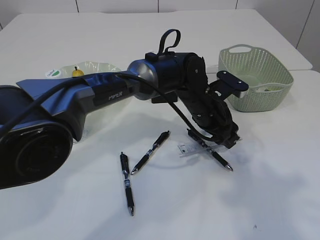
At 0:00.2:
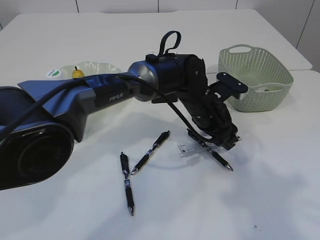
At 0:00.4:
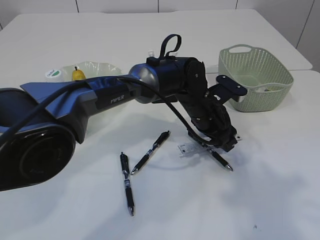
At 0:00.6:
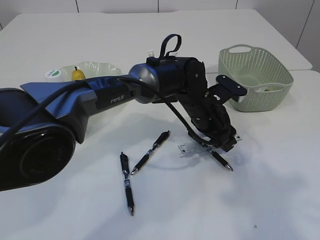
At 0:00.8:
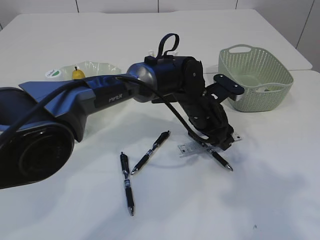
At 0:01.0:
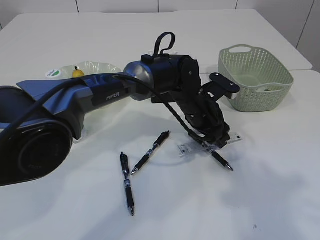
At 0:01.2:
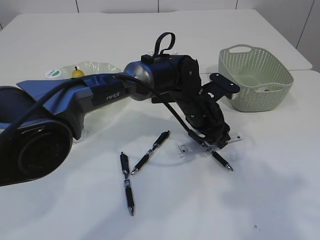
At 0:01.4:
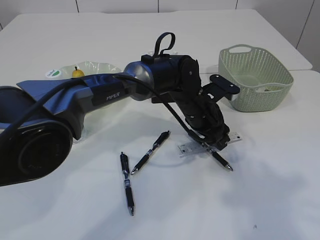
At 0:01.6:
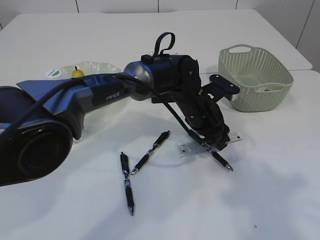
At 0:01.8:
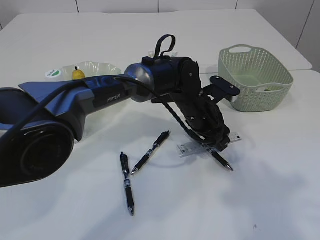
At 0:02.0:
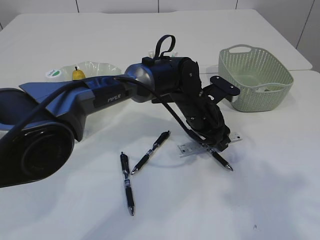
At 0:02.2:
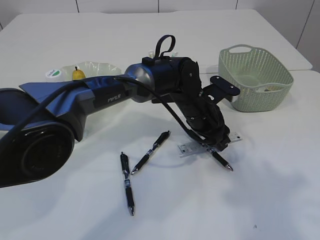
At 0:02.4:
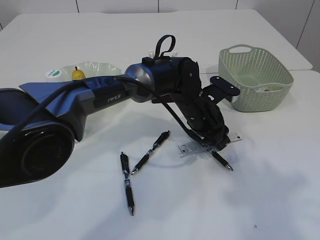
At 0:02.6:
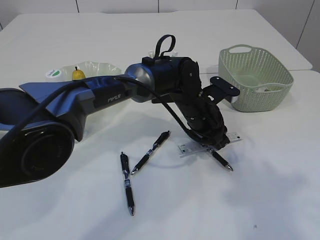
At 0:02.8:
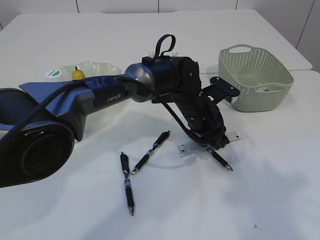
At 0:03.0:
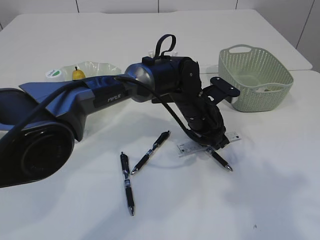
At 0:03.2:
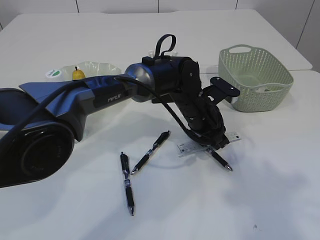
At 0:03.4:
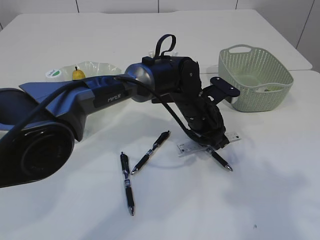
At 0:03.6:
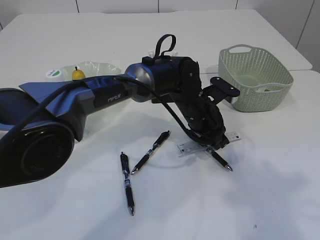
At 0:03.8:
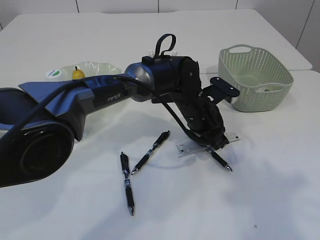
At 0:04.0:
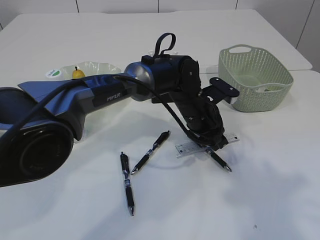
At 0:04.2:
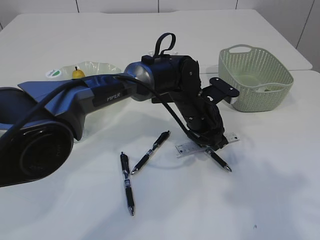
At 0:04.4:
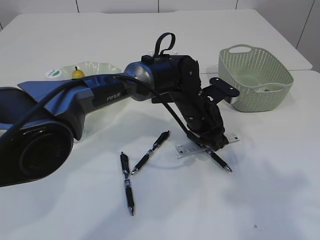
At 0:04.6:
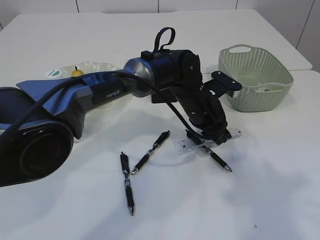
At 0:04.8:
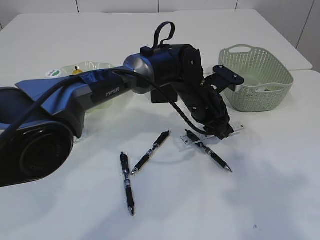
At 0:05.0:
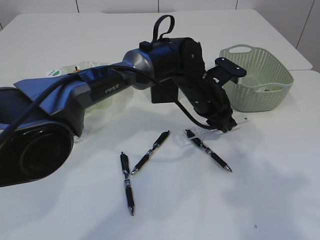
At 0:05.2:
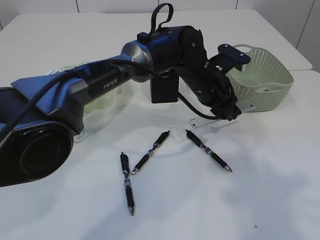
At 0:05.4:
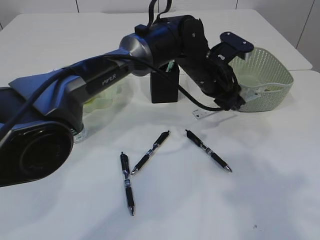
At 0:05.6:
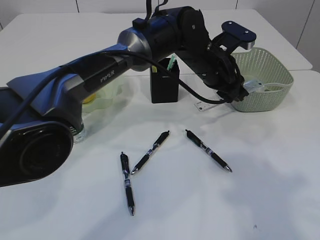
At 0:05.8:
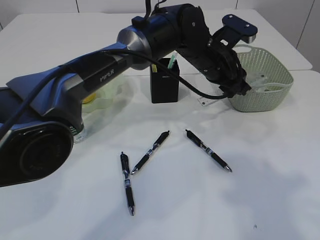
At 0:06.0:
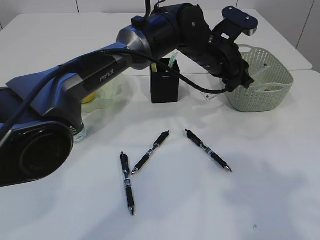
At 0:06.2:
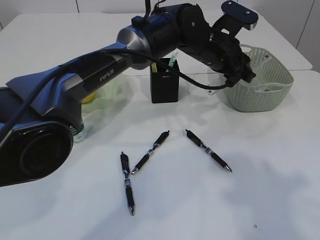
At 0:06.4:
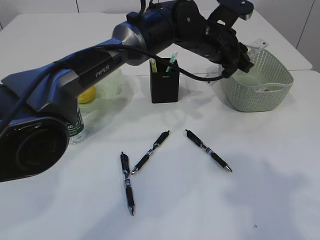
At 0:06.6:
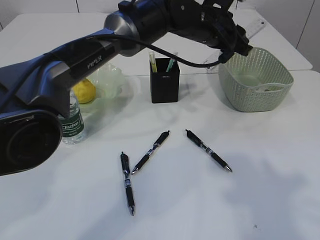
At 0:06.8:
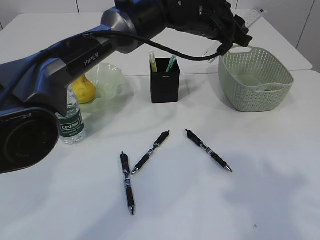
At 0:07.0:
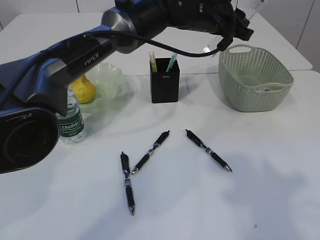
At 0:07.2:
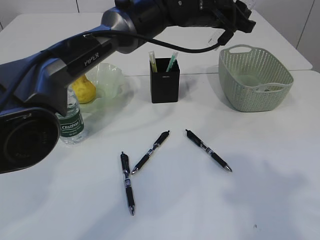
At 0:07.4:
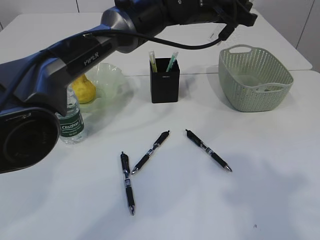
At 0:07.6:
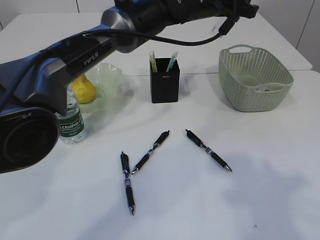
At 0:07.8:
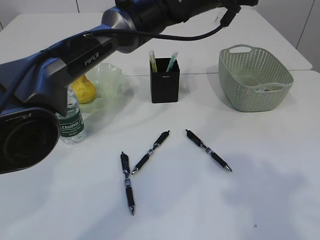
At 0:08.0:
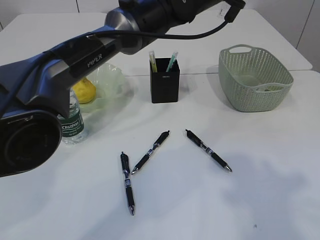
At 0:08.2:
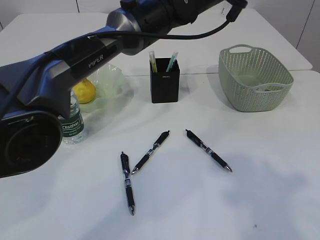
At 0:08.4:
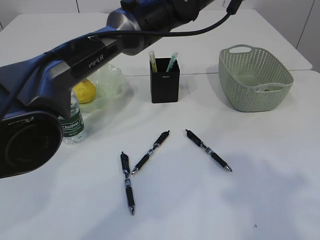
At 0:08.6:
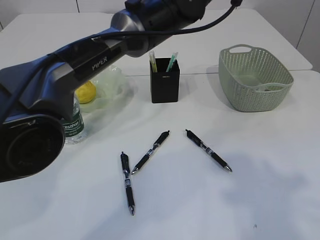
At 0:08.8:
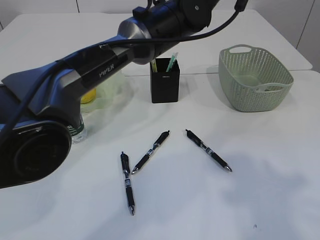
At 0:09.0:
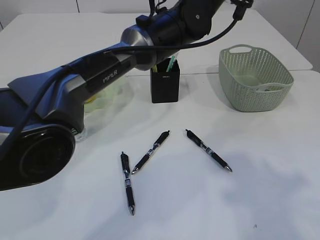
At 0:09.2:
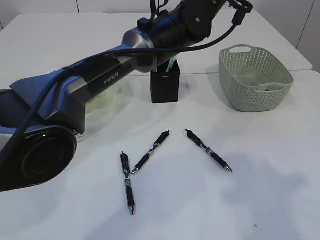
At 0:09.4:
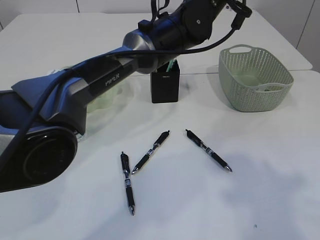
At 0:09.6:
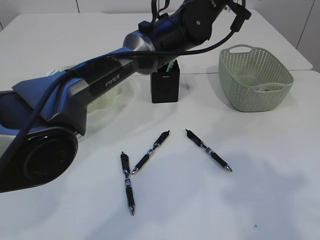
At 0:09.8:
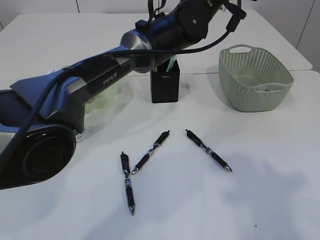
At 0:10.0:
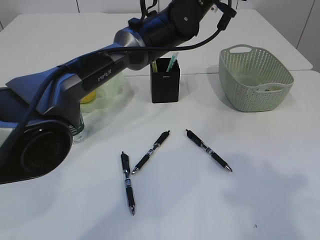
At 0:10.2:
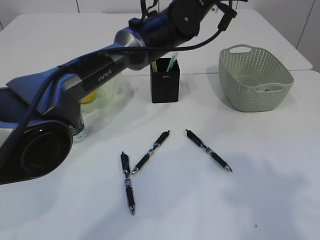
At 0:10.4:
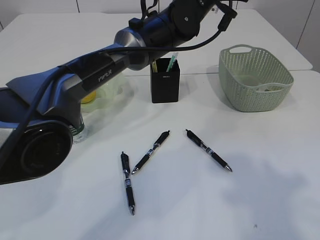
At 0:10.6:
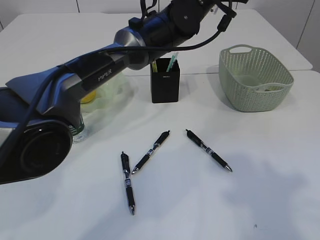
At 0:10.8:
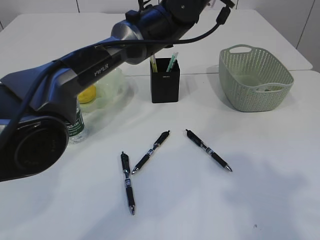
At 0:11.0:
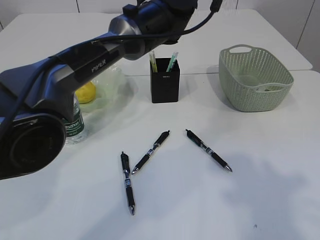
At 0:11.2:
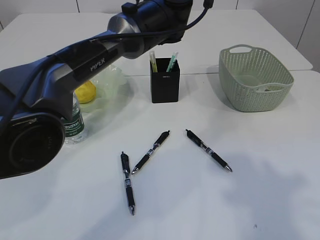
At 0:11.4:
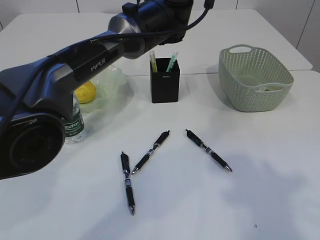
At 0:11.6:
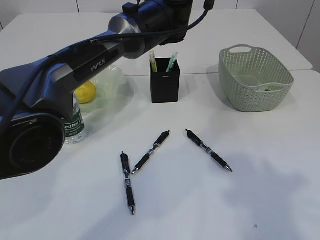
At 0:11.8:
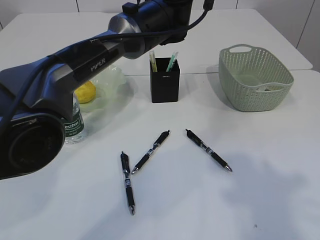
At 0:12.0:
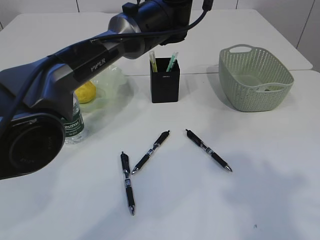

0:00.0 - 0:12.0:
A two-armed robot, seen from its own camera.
Step, 0:00.0 - 0:05.0: pick up the ruler.
0:00.0 - 0:01.6: The grippers make only small movements.
0:01.6 - 0:03.0: The left gripper closes its fingers.
0:03.0 - 0:04.4: Both grippers stay put.
0:04.4 - 0:06.0: The left gripper shifts approximately 10 cm upward.
0:06.0 - 0:07.6: The left gripper moves upward, some 10 cm.
0:09.0 - 0:10.4: The grippers make only small movements.

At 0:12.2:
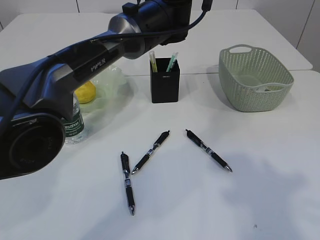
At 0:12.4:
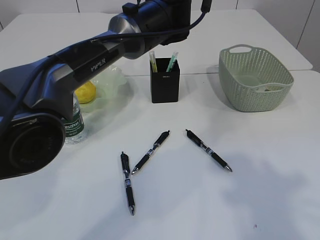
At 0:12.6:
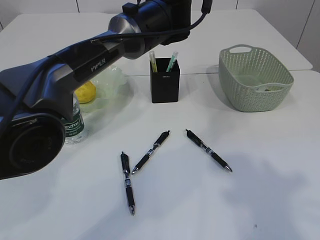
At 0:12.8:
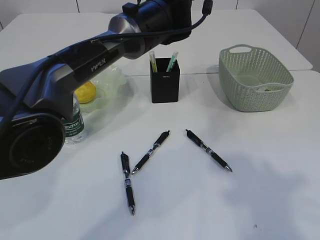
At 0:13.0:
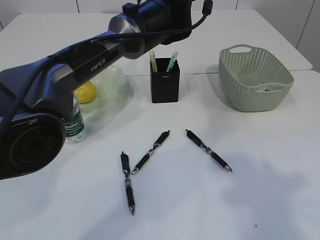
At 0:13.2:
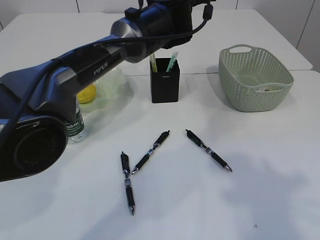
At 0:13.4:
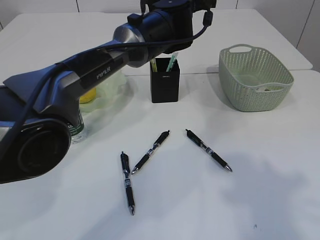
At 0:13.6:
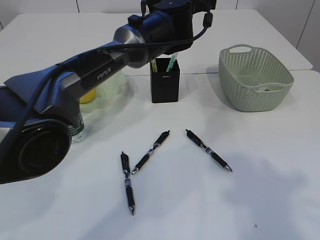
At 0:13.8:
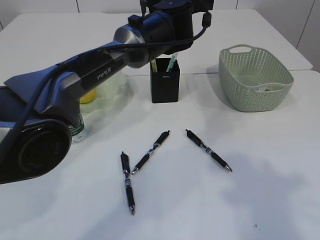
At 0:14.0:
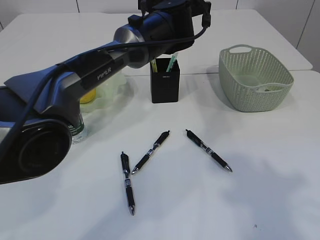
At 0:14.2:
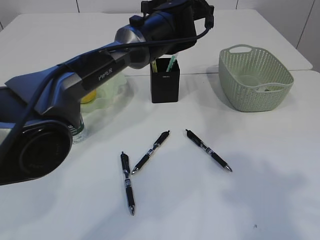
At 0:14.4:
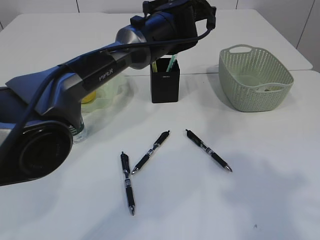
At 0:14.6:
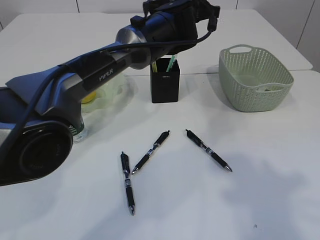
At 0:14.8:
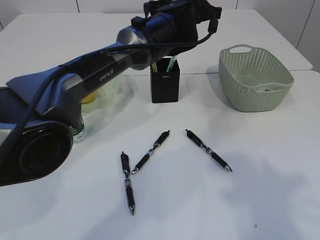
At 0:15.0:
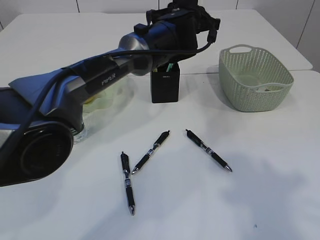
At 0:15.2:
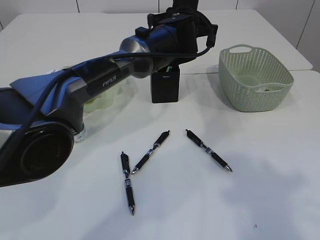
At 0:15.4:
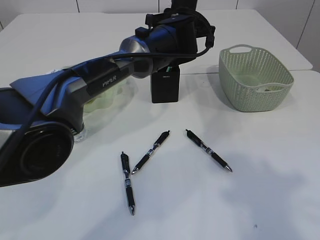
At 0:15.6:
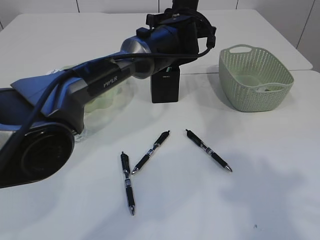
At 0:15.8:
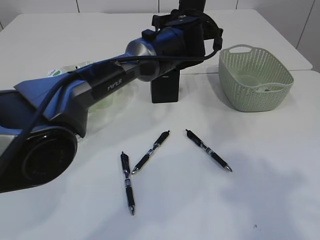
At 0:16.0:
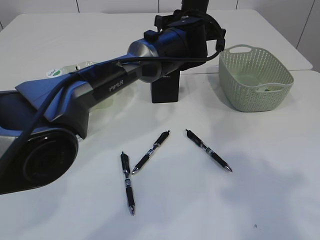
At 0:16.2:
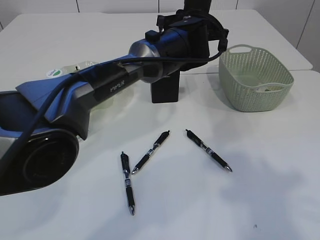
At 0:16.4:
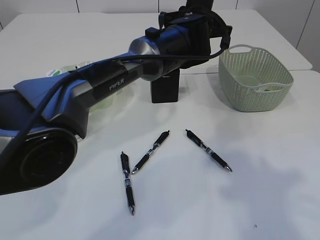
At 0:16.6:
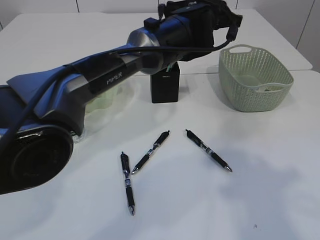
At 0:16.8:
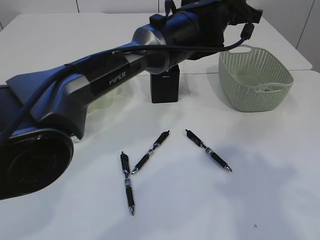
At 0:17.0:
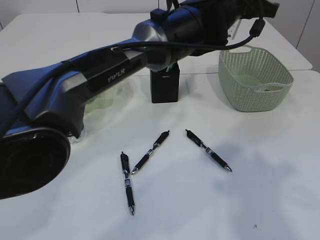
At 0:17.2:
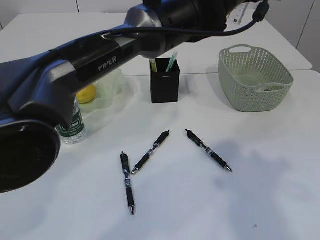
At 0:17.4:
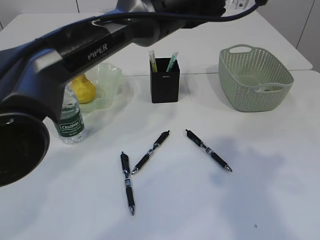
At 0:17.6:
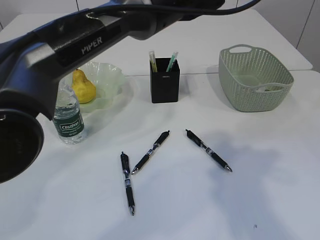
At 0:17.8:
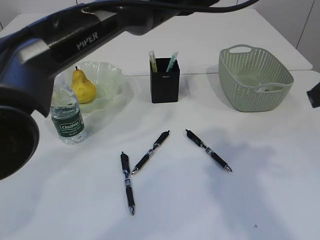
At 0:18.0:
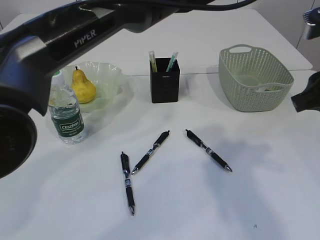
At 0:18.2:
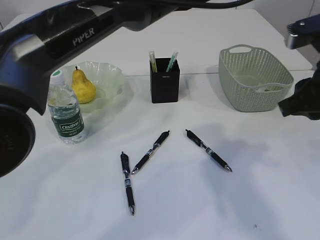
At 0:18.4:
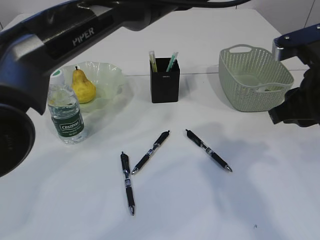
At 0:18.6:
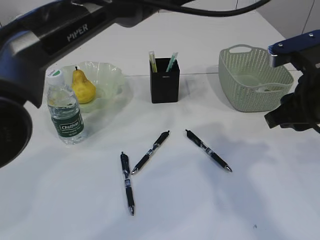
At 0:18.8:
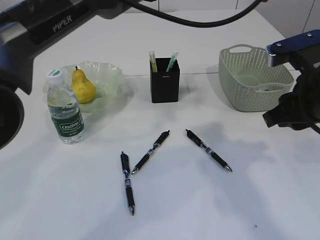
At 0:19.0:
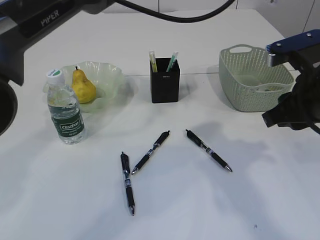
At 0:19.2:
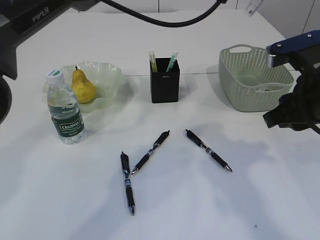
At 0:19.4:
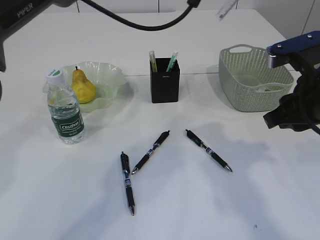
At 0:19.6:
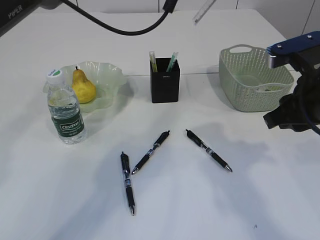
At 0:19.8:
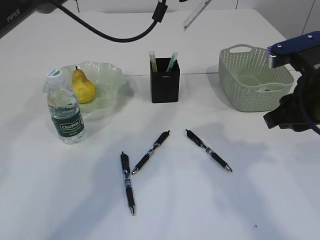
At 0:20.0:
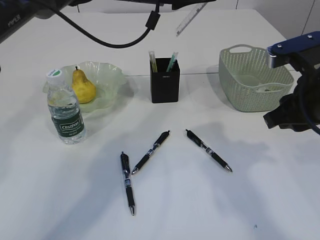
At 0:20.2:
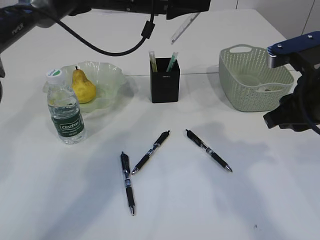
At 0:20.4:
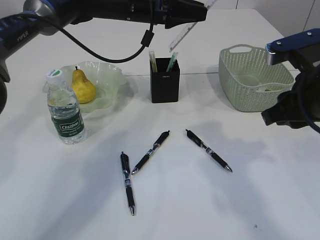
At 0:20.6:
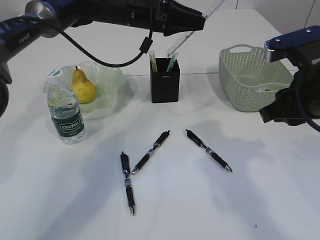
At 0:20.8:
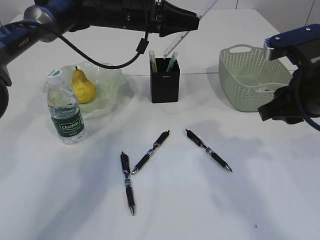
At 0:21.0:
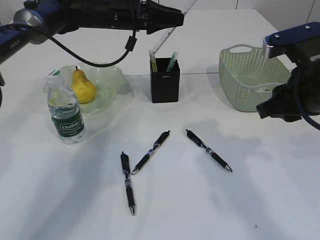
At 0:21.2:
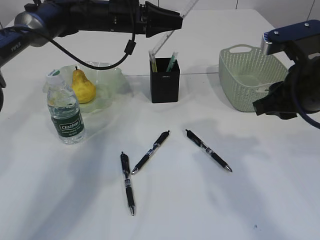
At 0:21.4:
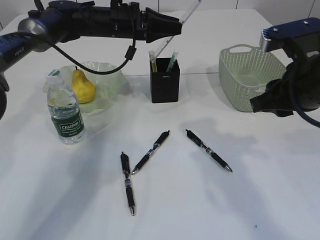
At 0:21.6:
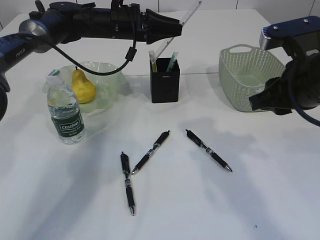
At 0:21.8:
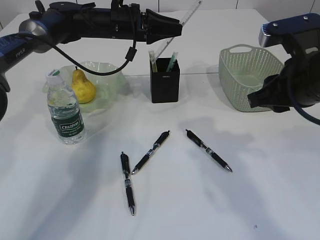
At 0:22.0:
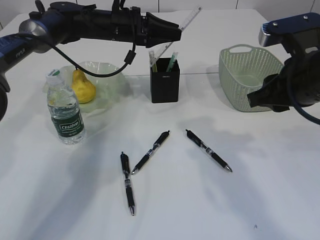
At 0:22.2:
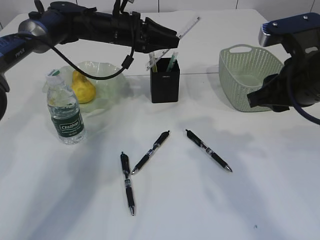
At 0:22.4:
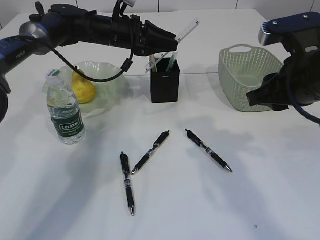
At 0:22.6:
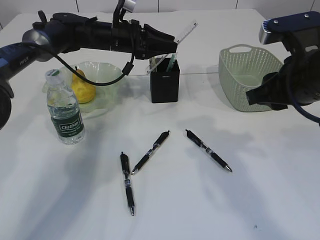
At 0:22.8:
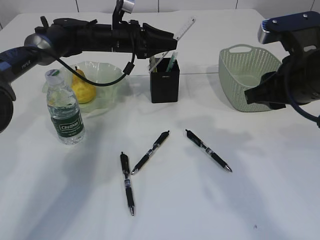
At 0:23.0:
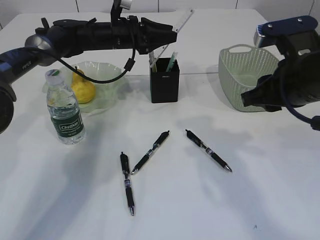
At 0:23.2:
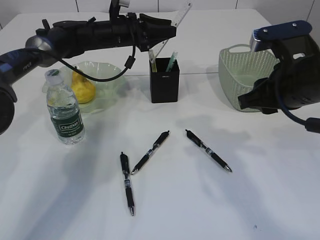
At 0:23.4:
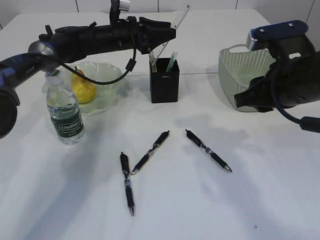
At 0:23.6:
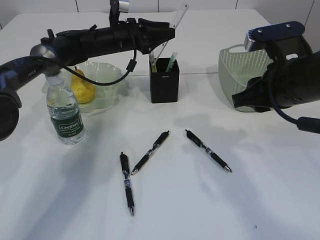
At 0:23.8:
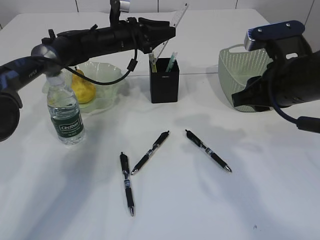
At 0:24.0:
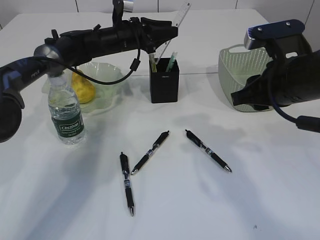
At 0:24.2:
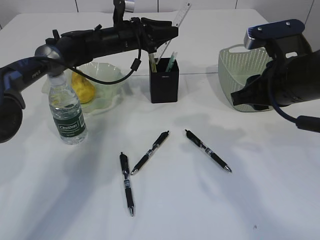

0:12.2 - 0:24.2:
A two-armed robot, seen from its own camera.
0:12.2 - 0:13.8: The grippers make only small movements.
0:13.8 - 0:16.6: There are only small adjustments of the grippers.
0:16.6 - 0:18.2: The left gripper heads upward and backward, covering approximately 15 cm, while the right gripper moves forward and downward, about 15 cm.
0:18.2 - 0:19.8: The left gripper goes roughly 15 cm to the left and forward.
0:19.8 - 0:21.2: The left gripper goes roughly 10 cm downward, to the left and forward.
0:21.2 - 0:22.6: The grippers stay close to where they were, moving slightly.
0:22.6 - 0:24.2: The grippers make only small movements.
